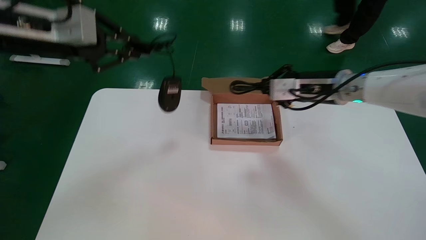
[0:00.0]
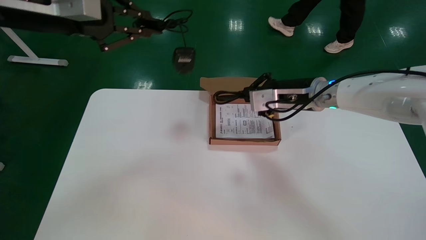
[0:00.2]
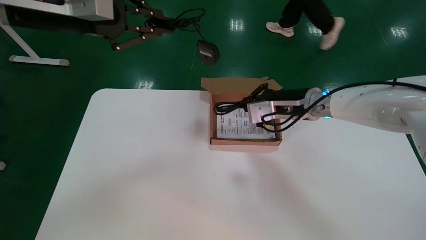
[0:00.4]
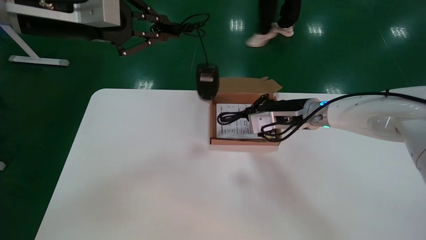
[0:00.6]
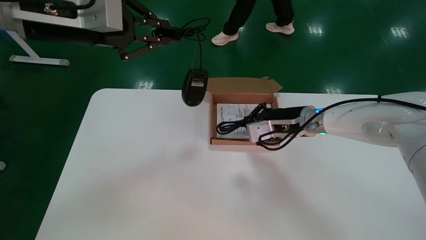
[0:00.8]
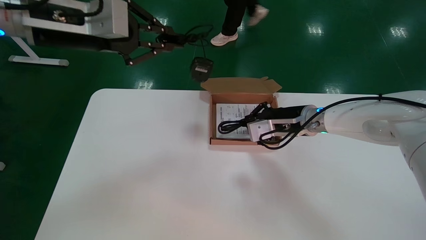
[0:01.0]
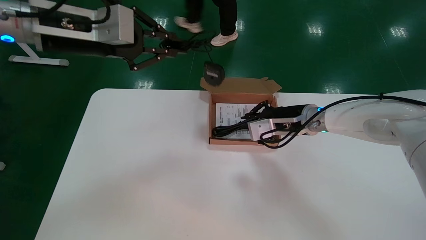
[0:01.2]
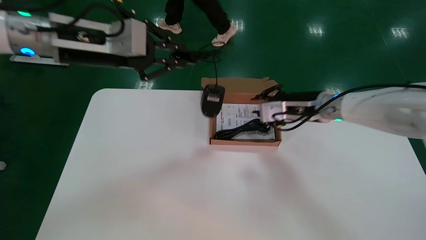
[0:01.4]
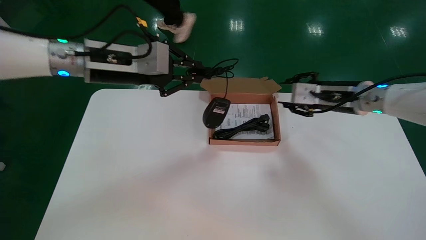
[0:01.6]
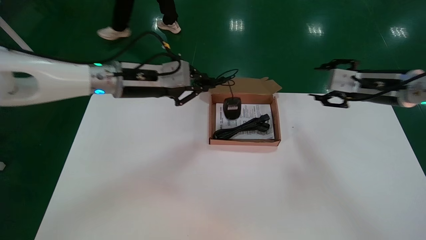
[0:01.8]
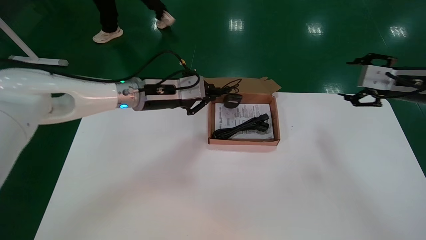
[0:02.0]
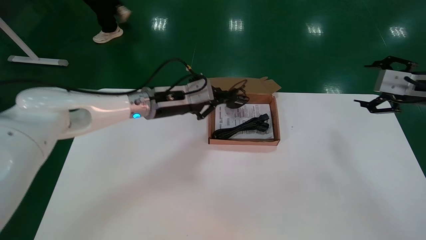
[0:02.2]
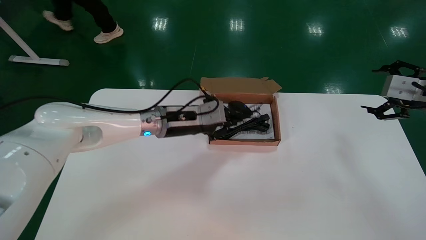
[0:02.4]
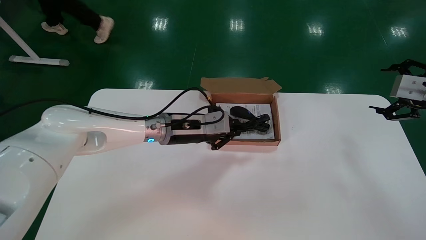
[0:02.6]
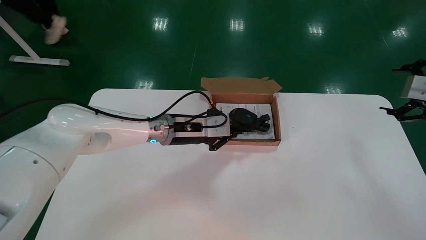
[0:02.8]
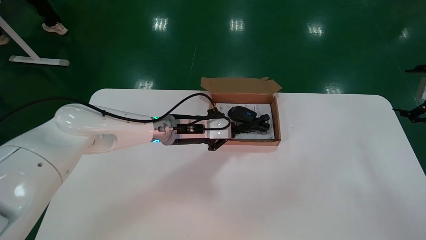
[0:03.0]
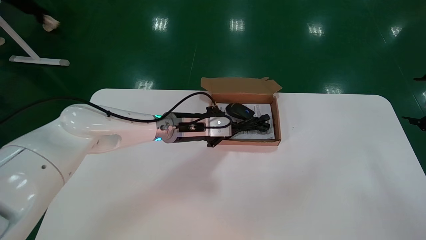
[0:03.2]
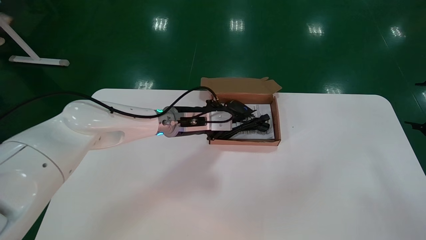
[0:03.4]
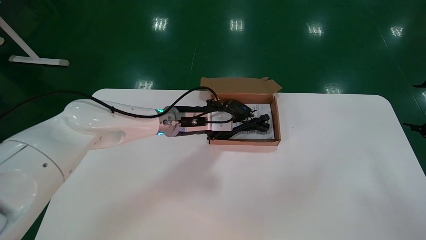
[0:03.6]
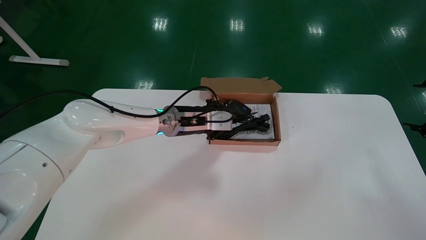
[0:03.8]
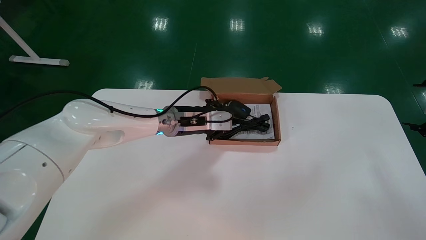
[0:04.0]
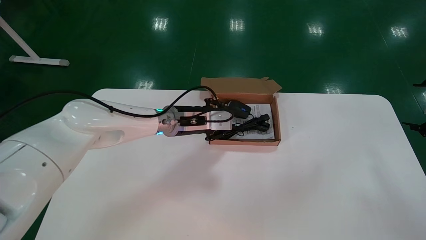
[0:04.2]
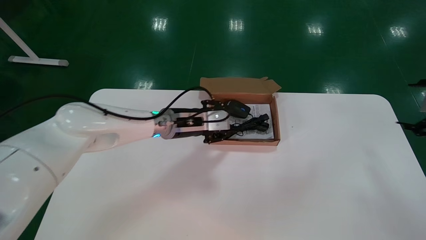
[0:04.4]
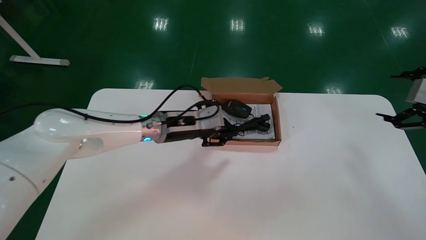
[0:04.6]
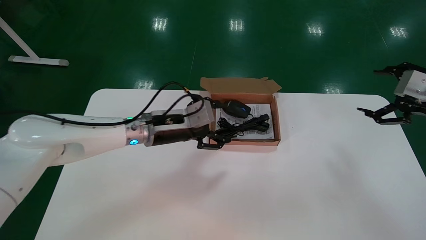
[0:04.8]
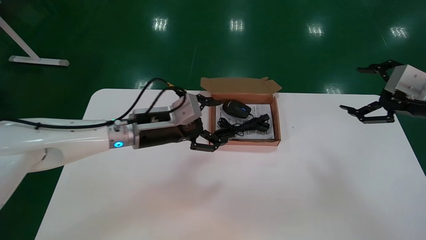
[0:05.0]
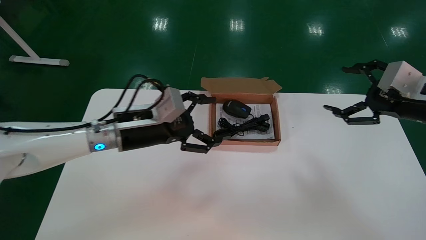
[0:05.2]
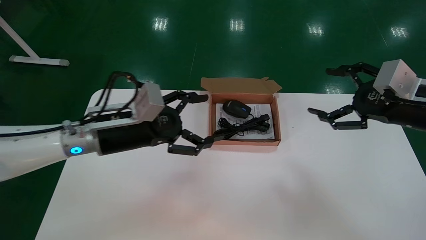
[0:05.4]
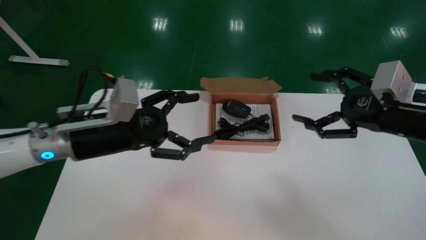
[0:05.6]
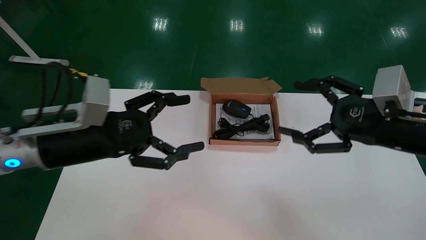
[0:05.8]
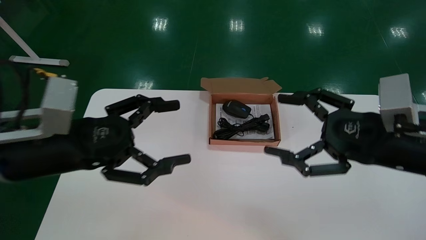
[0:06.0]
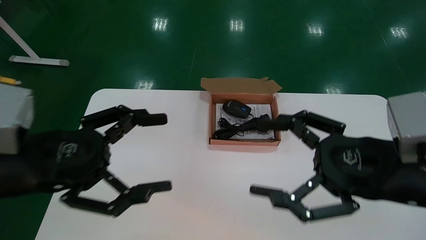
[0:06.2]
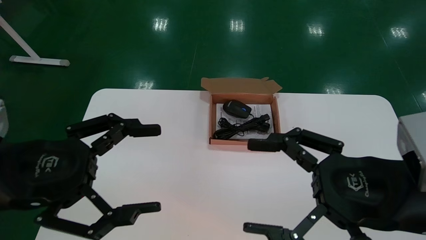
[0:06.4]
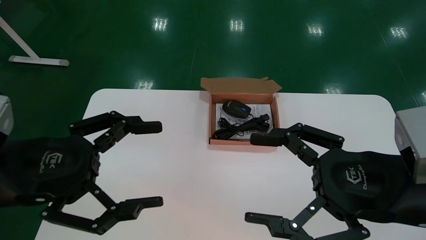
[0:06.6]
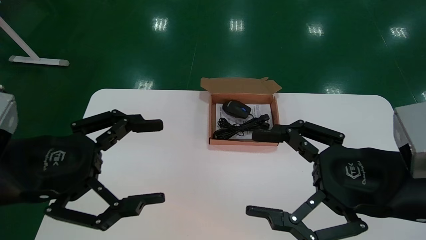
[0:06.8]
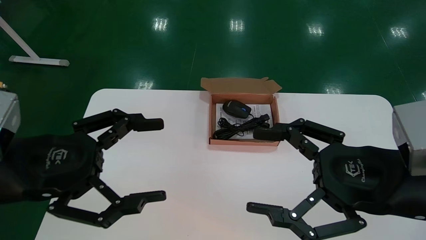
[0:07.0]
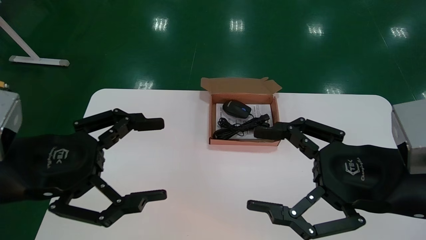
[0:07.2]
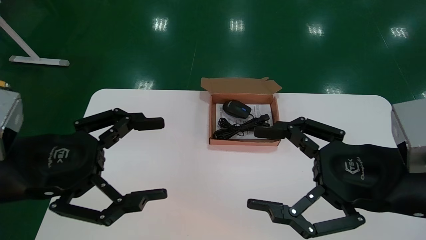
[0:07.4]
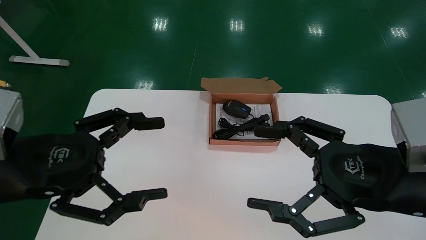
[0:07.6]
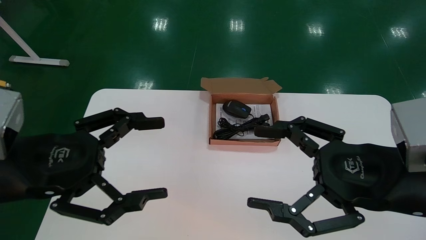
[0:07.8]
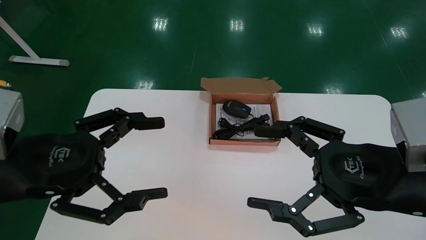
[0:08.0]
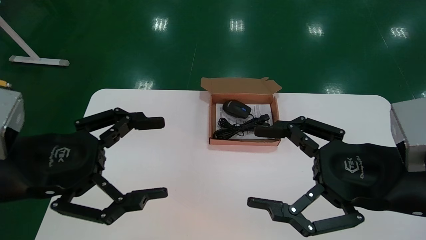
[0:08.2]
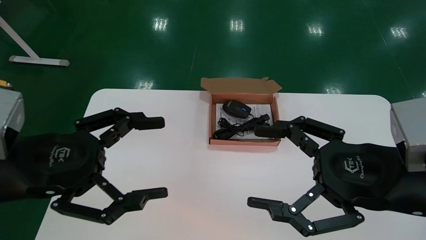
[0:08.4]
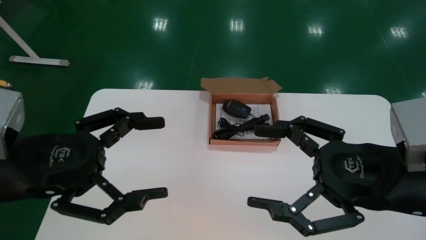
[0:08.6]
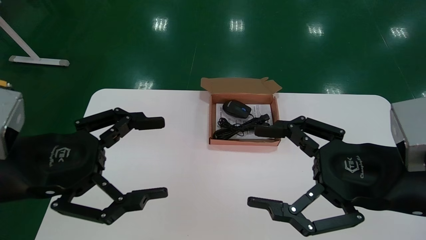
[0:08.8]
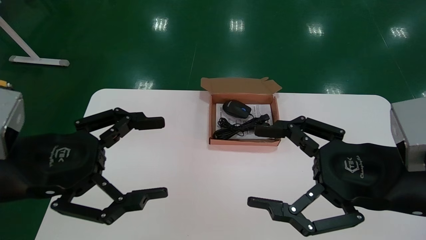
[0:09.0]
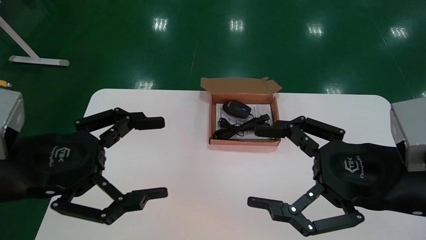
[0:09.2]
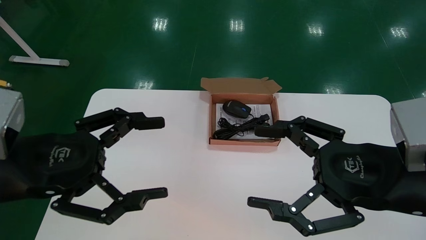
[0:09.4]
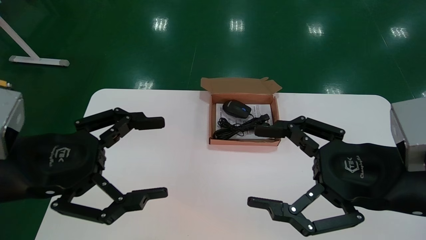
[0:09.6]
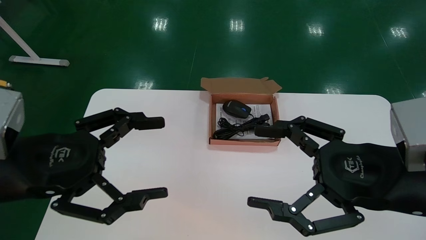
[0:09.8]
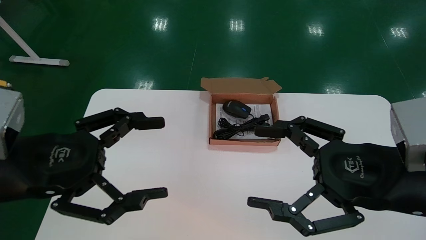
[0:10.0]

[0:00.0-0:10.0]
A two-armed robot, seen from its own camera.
Step, 0:00.0 to 0:04.6: Place the mouse and power cord into the box.
0:00.0 to 0:01.4: The left gripper shifts approximately 5 cm to the right.
0:01.4 to 0:02.8: The left gripper travels downward, to the right and forward by approximately 25 cm. The right gripper goes some 25 cm to the right and backward, and opens its fingers.
0:02.8 to 0:04.2: The grippers move only a little.
0:04.2 to 0:05.8: The right gripper travels to the left by about 20 cm. Meanwhile the left gripper travels backward and to the left by about 20 cm, and opens up.
0:05.8 to 0:07.2: The left gripper travels backward by approximately 10 cm. Meanwhile the right gripper moves backward and to the left, some 10 cm.
0:07.2 to 0:10.0: Both grippers stay put.
